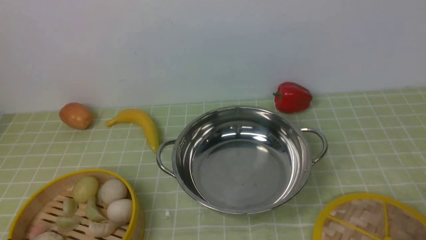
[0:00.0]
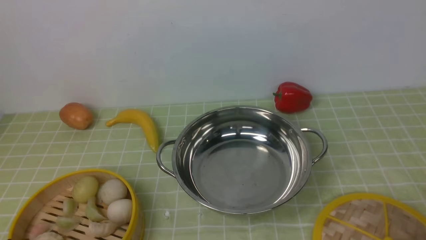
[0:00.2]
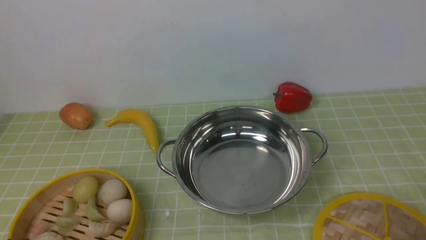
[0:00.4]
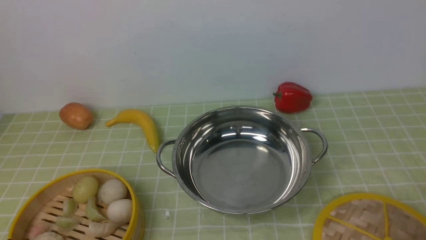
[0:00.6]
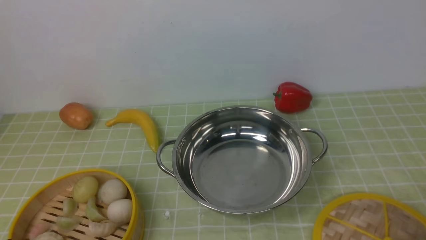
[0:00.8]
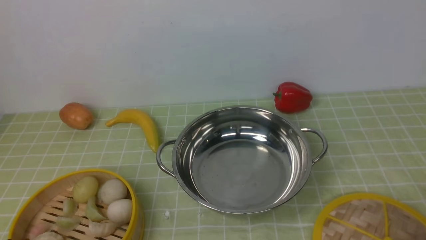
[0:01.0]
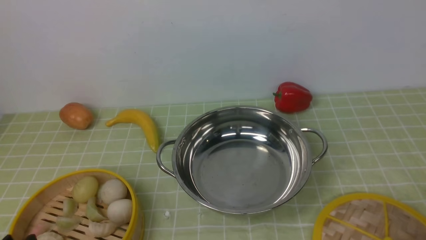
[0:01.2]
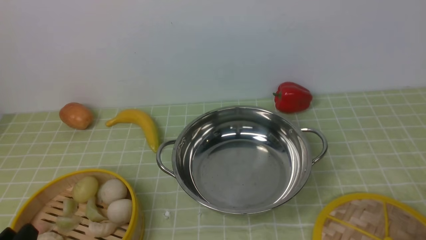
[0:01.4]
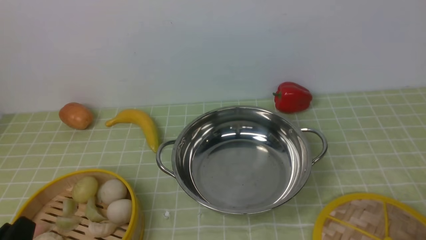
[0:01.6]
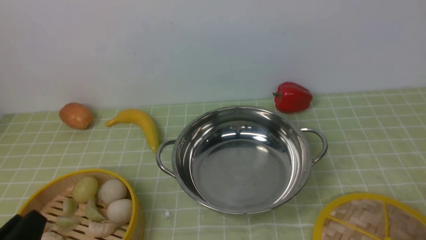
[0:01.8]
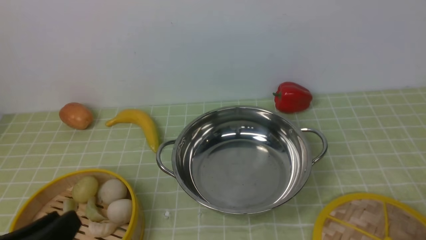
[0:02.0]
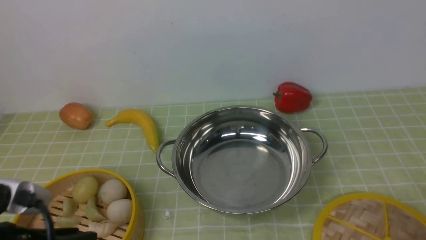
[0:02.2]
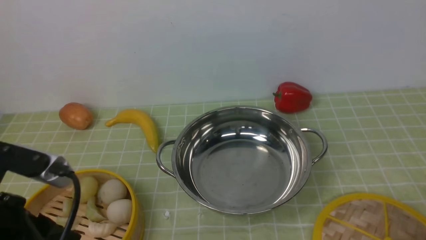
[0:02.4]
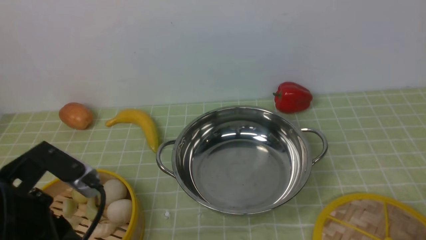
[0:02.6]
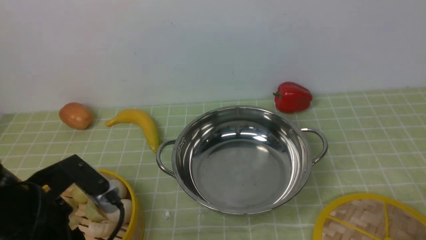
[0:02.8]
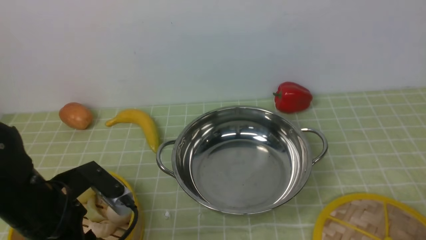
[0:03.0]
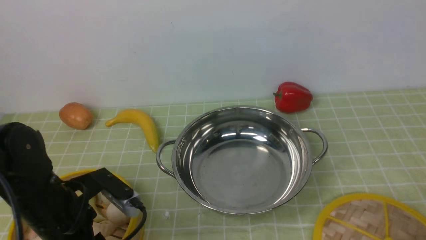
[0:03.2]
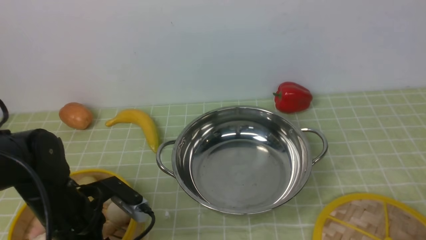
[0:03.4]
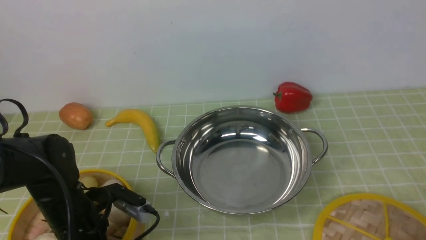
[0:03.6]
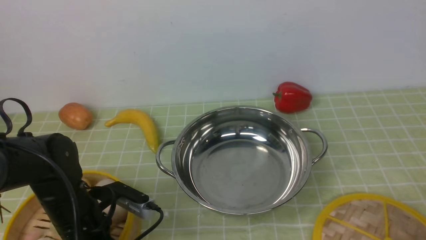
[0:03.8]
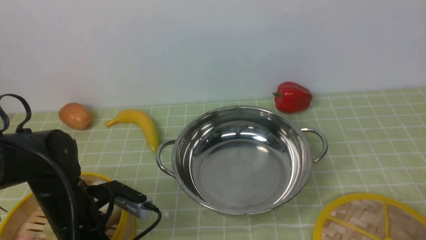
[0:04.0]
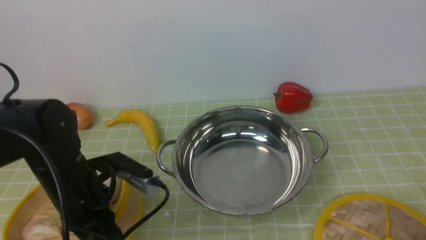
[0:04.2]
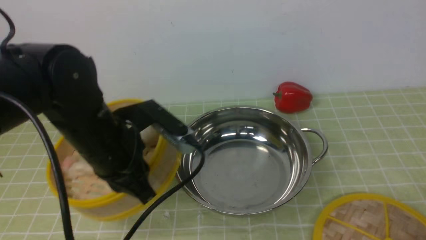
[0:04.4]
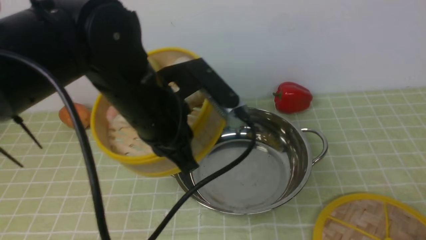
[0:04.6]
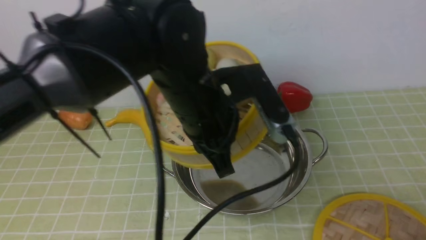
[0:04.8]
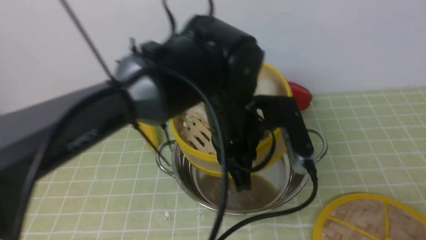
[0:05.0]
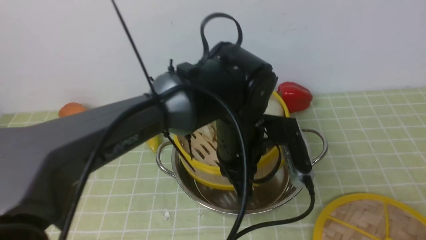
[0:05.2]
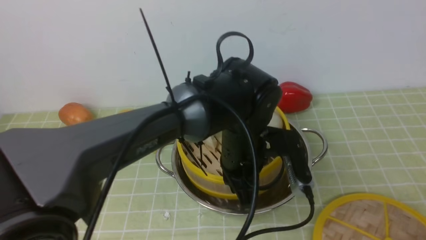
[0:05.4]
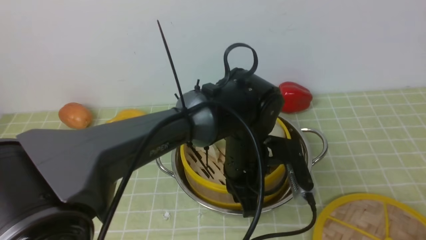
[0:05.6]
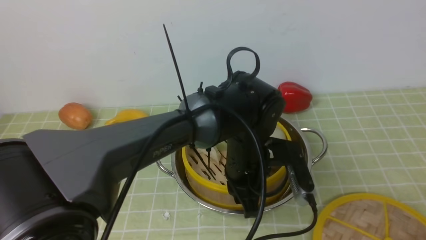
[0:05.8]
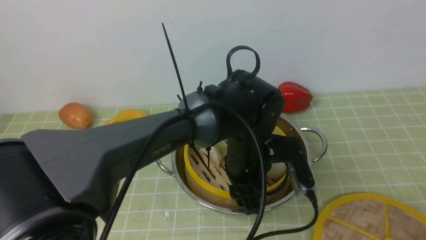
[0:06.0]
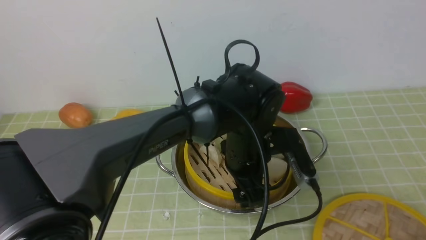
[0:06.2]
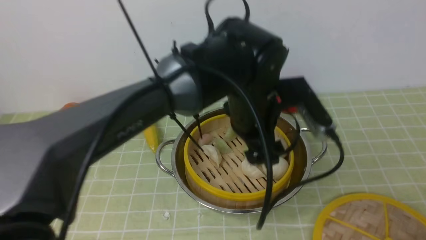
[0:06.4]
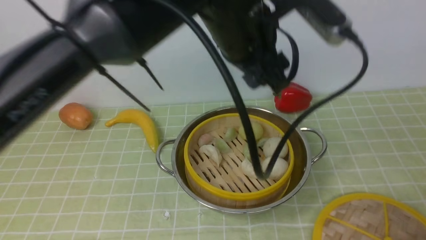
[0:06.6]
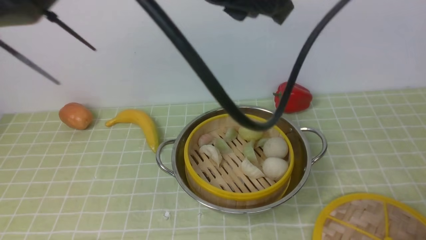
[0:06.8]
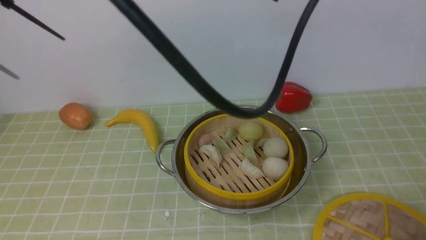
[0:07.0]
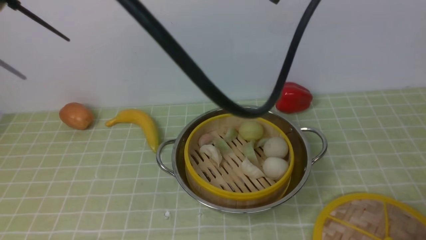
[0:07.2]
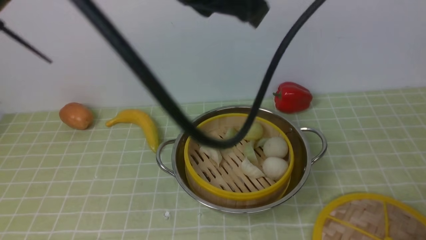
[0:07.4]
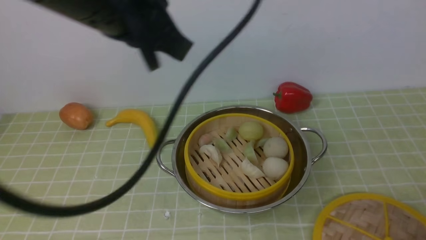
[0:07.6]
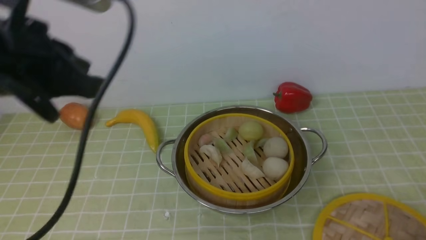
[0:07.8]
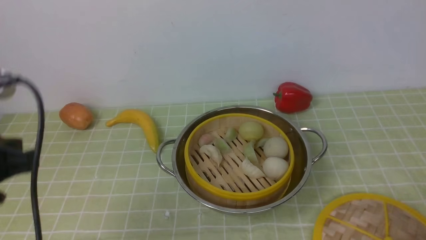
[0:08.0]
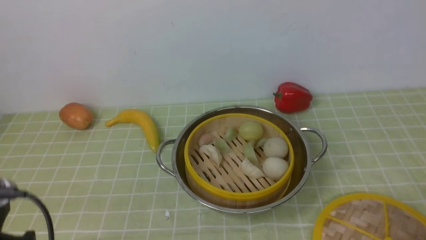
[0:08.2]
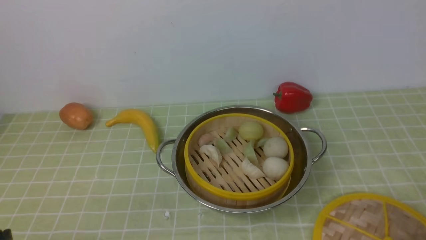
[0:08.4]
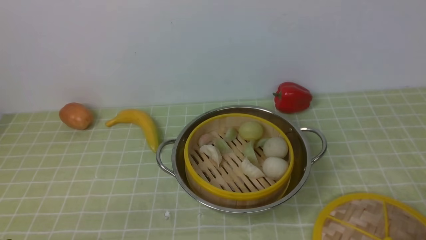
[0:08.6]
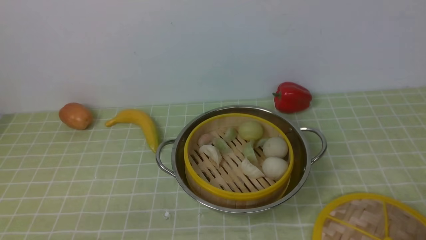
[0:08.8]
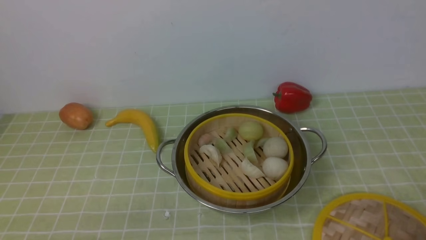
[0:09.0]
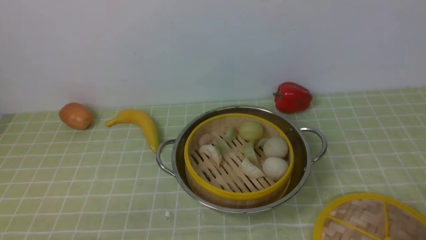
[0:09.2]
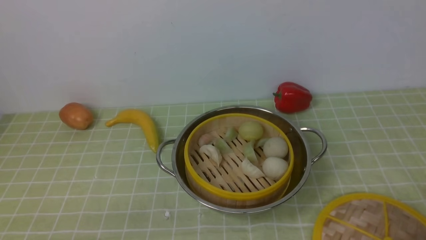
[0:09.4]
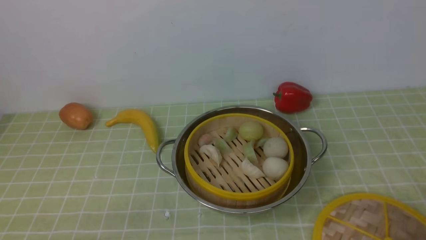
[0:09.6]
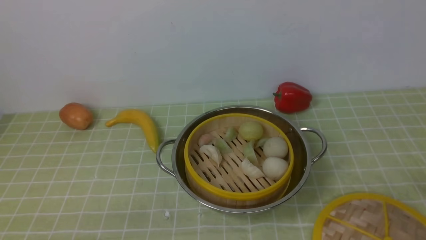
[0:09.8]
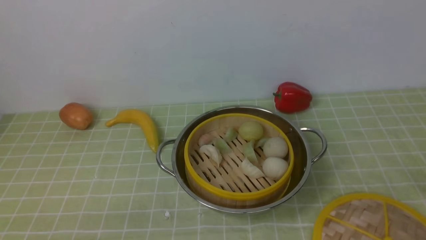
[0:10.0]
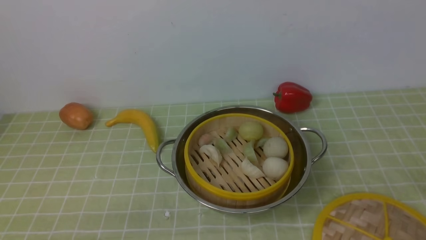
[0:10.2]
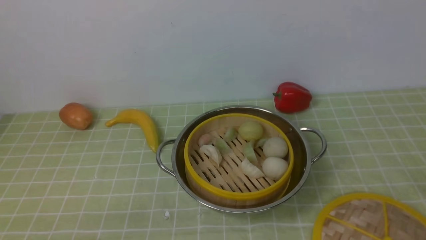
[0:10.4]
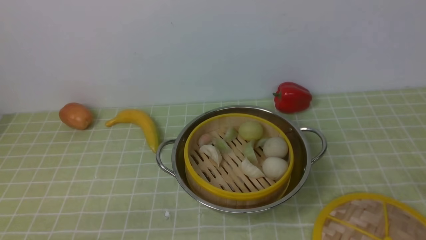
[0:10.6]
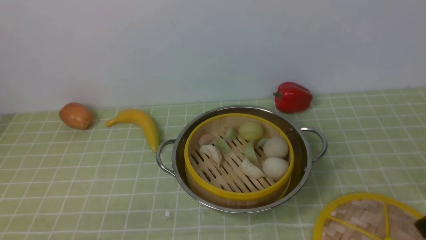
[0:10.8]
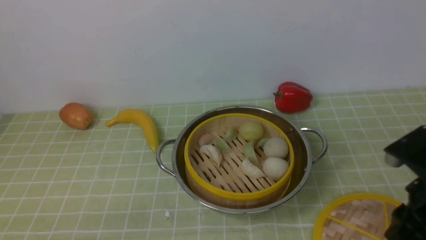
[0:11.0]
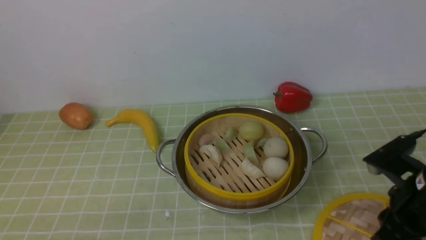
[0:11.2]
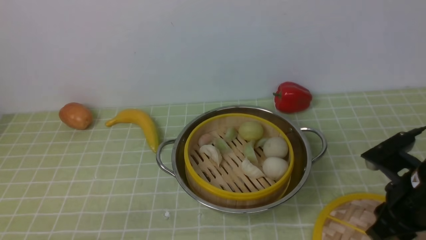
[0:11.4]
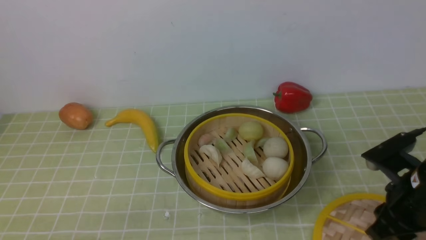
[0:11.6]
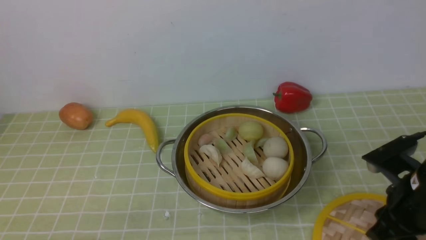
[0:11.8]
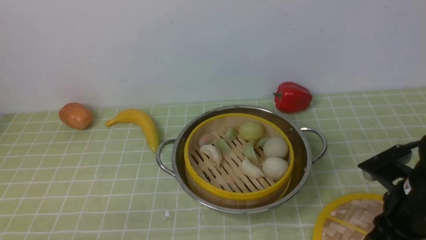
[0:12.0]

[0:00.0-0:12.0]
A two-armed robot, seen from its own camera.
Task of the whole recording: place the steamer in the pot on the green tablecloth, and put the lid on the steamer.
Step, 0:00.0 to 0:04.4: use the left arm to lift the steamer closest to it.
Step, 0:04.6 to 0:06.8: use the left arm to put the steamer into the iron steamer pot in the middle.
0:01.6 to 0:03.0: The left gripper moves forward, about 15 cm.
0:03.0 to 0:04.4: The left gripper goes about 10 cm to the right, forward and upward, and closes up.
0:04.4 to 0:06.0: The left gripper moves to the right and downward, some 20 cm, and opens its fingers.
0:06.0 to 0:07.6: The left gripper shifts about 30 cm upward and to the left, and closes its fingers.
0:07.6 to 0:09.0: The left gripper goes approximately 35 cm downward, backward and to the left.
0:10.4 to 0:12.0: The right gripper moves forward and downward, approximately 25 cm.

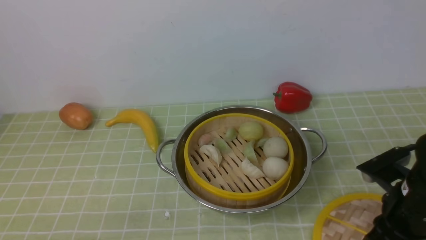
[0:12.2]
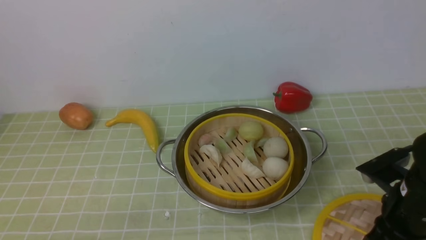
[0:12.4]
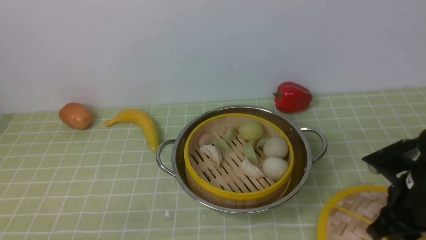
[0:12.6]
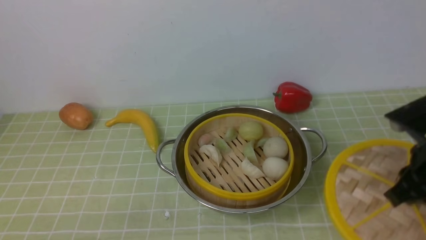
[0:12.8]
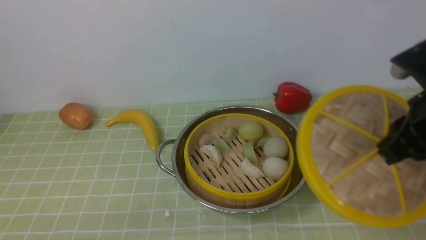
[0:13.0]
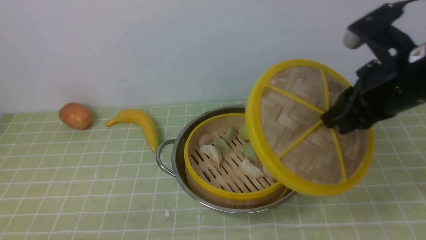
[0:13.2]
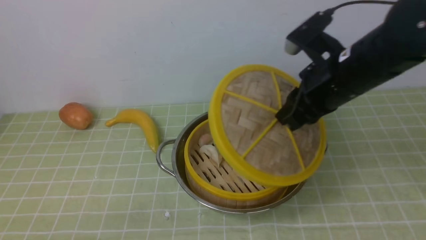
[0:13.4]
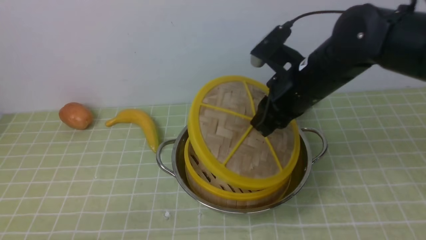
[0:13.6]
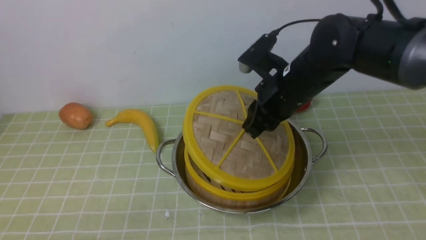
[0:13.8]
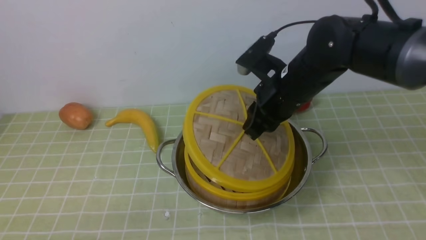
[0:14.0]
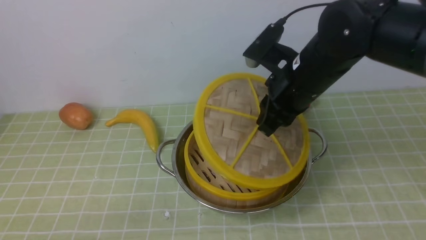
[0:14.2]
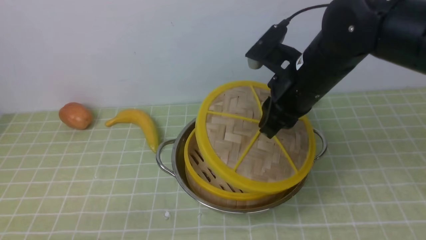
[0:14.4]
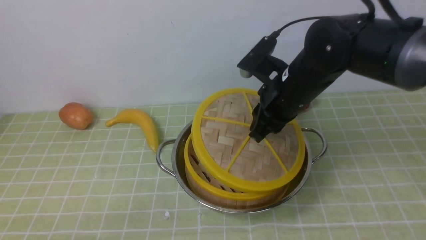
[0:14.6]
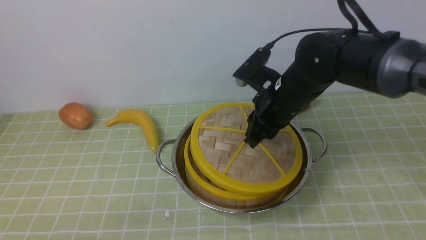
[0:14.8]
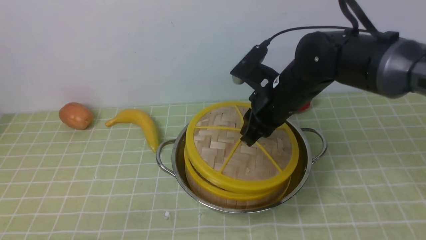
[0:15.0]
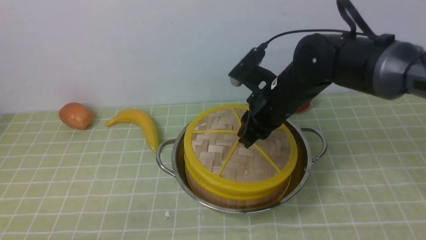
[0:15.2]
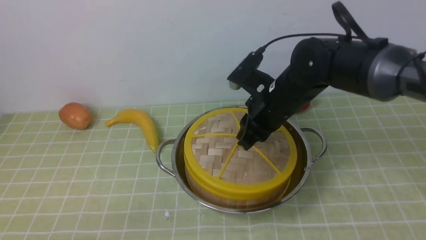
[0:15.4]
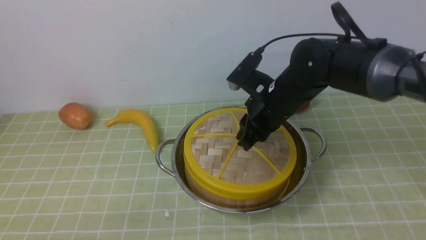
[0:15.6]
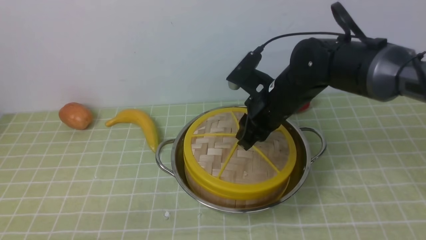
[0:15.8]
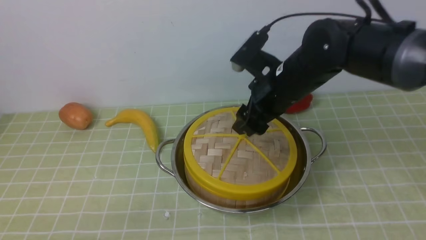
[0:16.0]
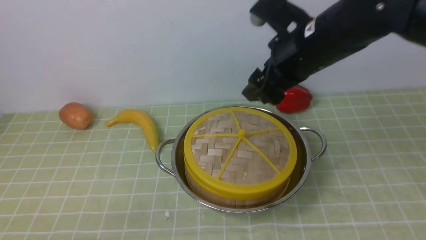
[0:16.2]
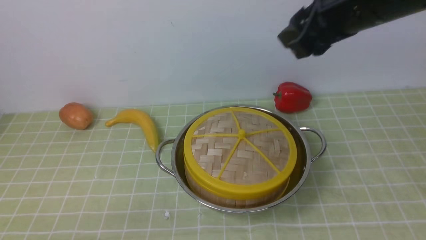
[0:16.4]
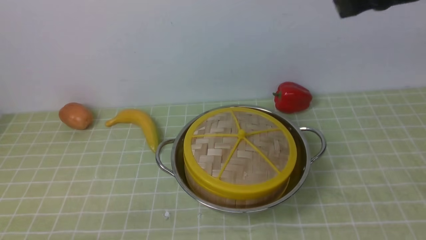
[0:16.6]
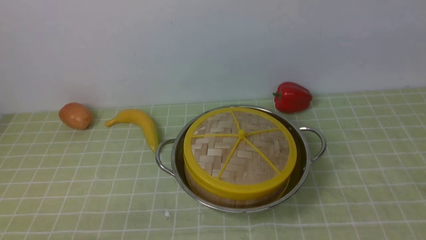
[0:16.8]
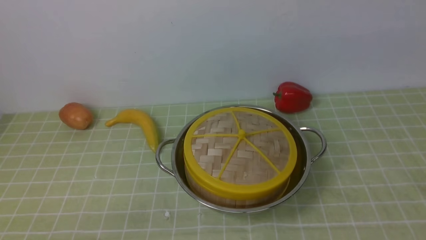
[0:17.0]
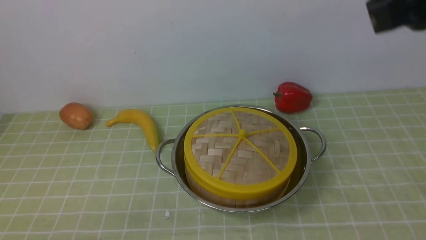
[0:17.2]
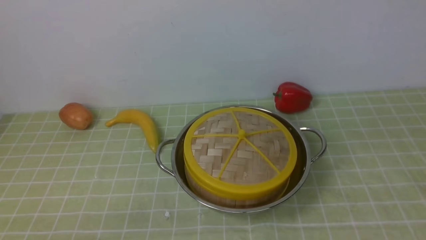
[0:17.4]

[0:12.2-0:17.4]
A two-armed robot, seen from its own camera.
Task of the whole recording: place the steamer in the pot on the green tablecloth, and put the lid on the steamer.
Step, 0:13.2 to 0:16.8: use the right arm to place the steamer lid on the steamer.
0:12.2 to 0:14.0: The right gripper moves to the left, forward and upward, approximately 20 cm.
0:14.0 to 0:15.6: The right gripper changes place by about 5 cm.
0:15.6 to 0:17.4: The right gripper shifts about 35 cm backward, to the right and upward, and closes.
